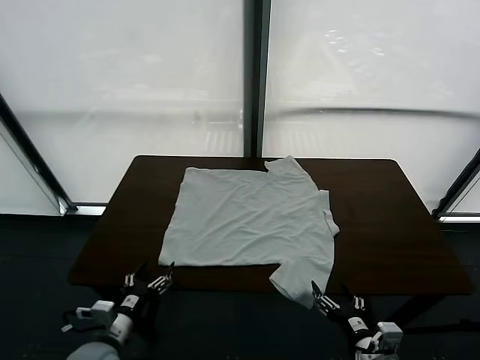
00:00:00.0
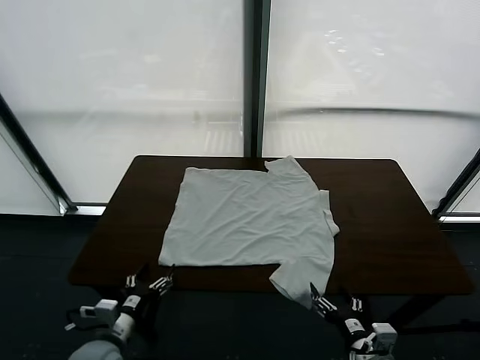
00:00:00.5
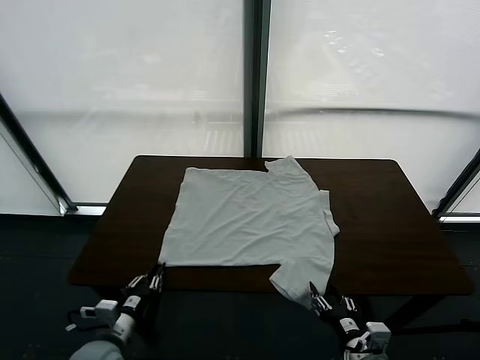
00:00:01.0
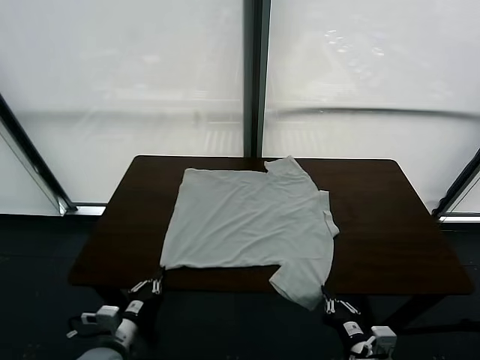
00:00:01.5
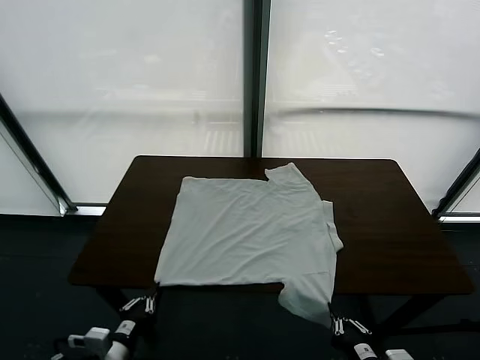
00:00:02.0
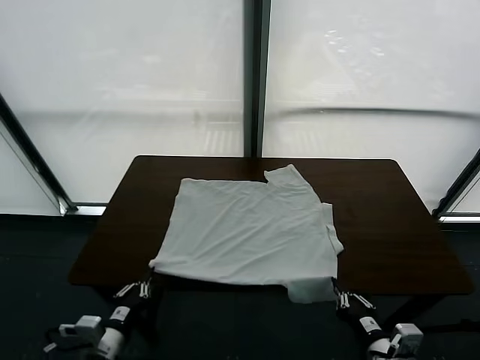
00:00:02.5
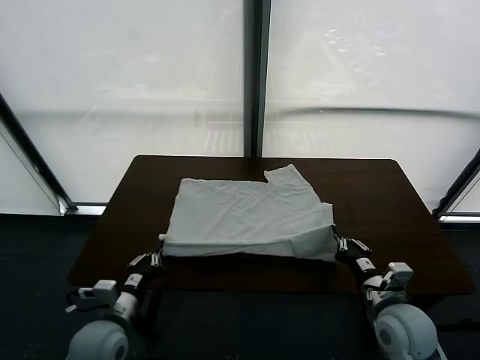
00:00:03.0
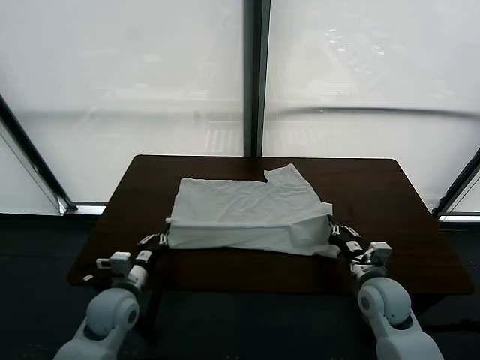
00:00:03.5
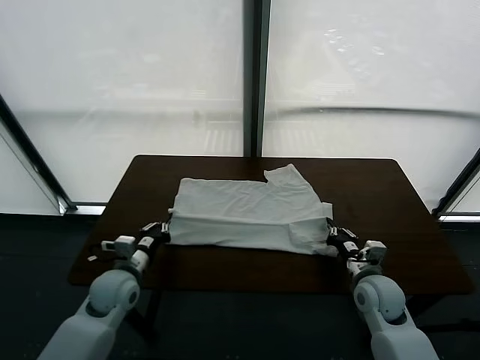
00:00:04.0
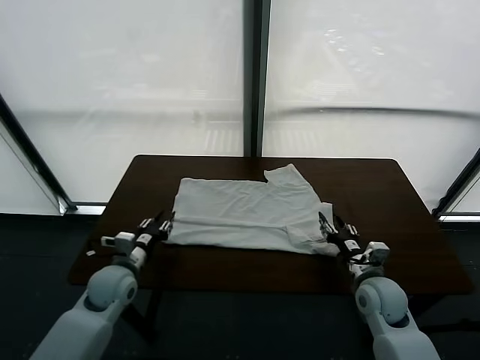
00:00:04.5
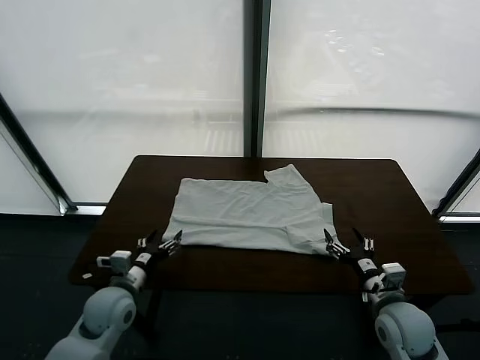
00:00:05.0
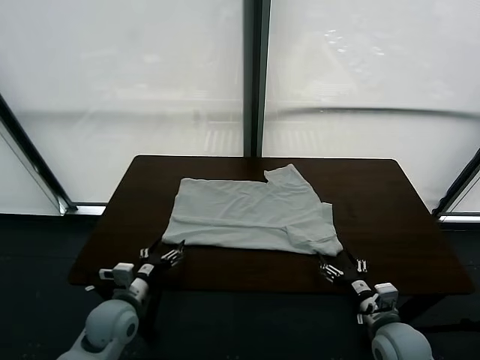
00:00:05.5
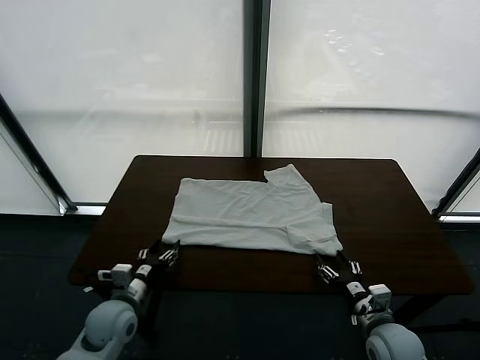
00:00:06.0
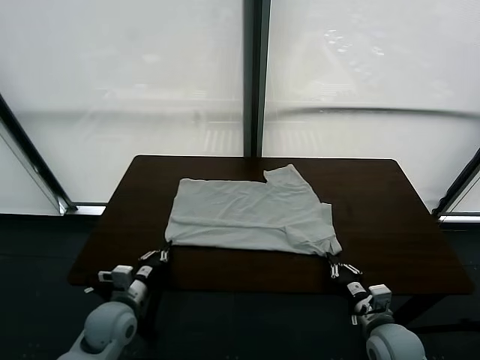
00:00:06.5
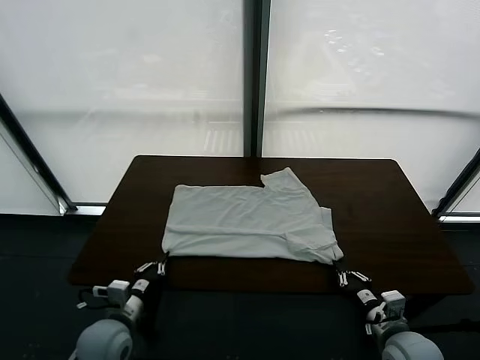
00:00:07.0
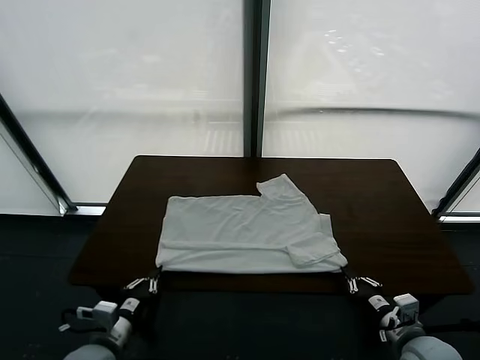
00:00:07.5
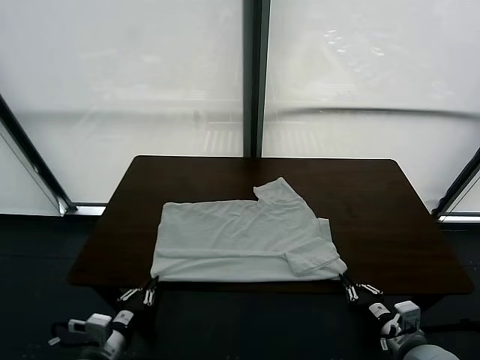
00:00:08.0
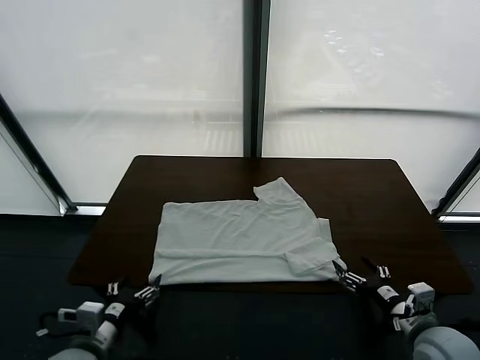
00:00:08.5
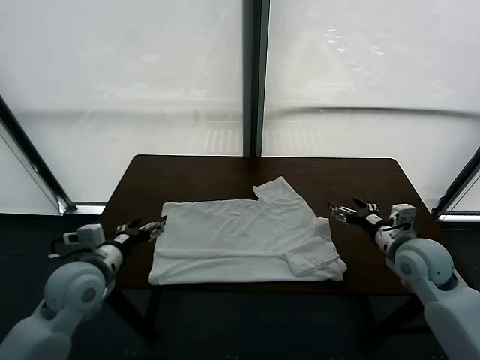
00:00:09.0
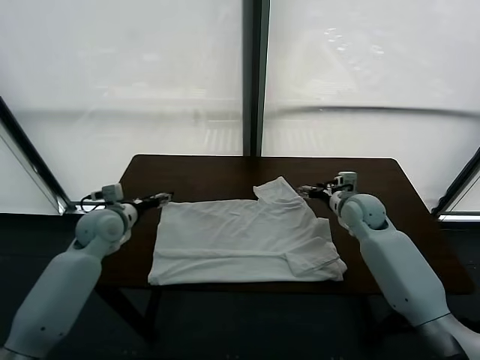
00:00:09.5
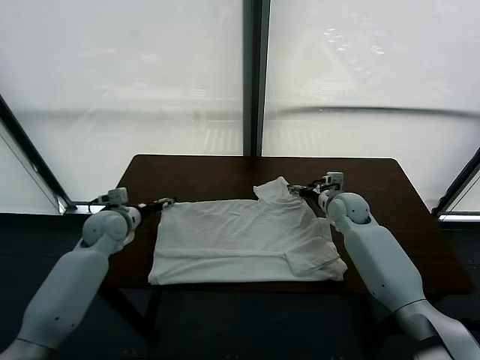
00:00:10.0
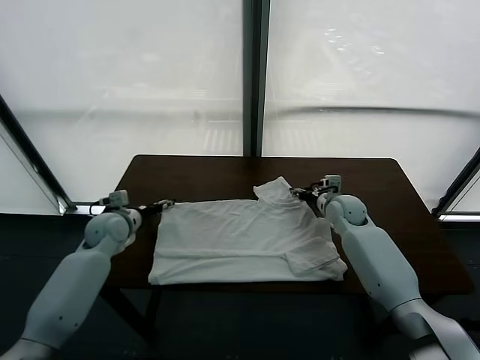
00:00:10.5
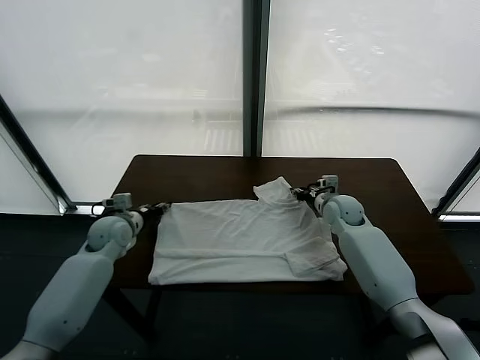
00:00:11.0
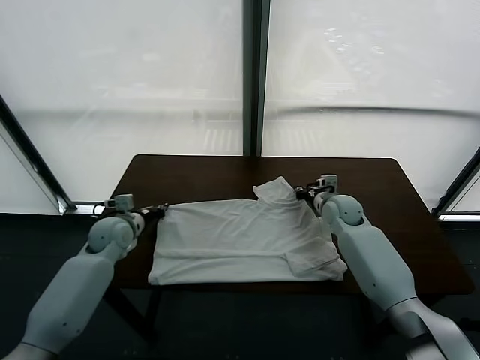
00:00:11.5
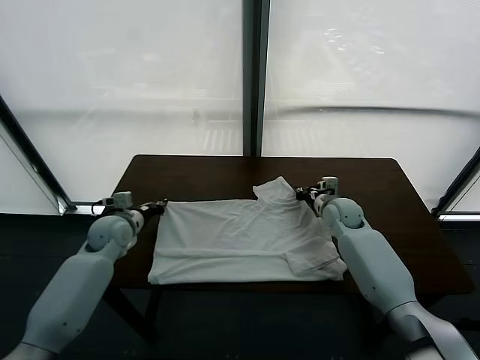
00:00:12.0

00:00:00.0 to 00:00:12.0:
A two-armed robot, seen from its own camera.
Task of the whole recording: fold and organize the clothes.
Step, 00:00:00.0 to 00:00:02.0: use both grippers simultaneously to clamp the lower edge of the clothing fabric.
Step, 00:00:02.5 to 00:00:04.5: use both grippers to drag the lower edge of the fabric forward and fold it over the upper edge.
Step, 00:00:05.0 to 00:00:08.0: Drag the clothes downward with both gripper.
00:00:02.0 to 00:00:04.0: The two grippers go some 20 cm forward.
00:00:04.0 to 00:00:06.0: The left gripper goes some 5 cm backward, and opens. The right gripper shifts some 10 cm backward, and opens its fingers.
00:00:06.0 to 00:00:08.0: The left gripper travels backward by some 10 cm, and closes up, while the right gripper travels backward by some 5 cm, and closes, then opens again.
00:00:08.0 to 00:00:10.0: Both grippers move forward, about 35 cm. The left gripper opens; the right gripper opens up.
00:00:10.0 to 00:00:12.0: The right gripper closes; the left gripper closes its fingers.

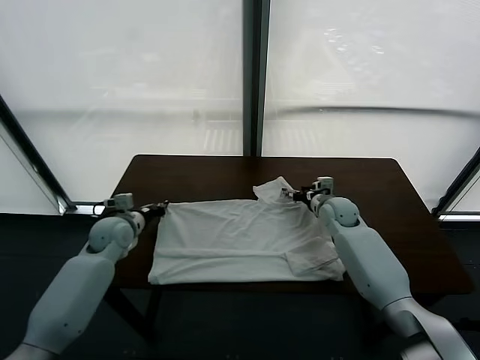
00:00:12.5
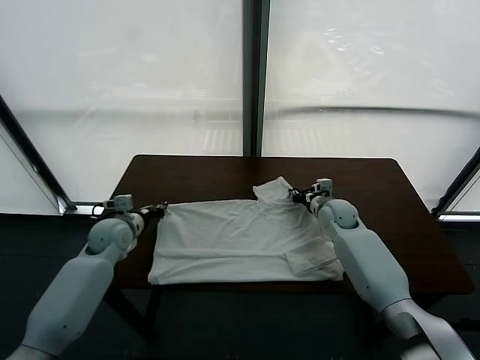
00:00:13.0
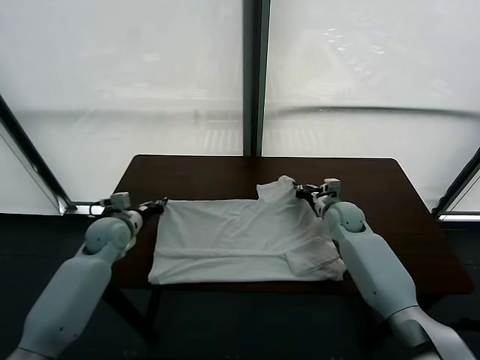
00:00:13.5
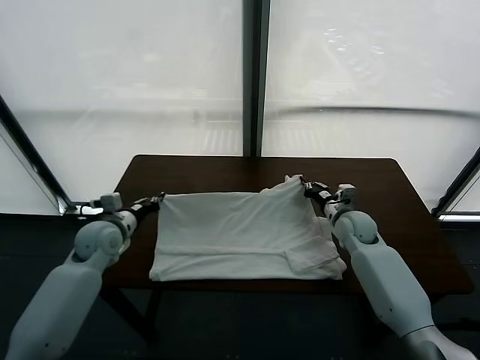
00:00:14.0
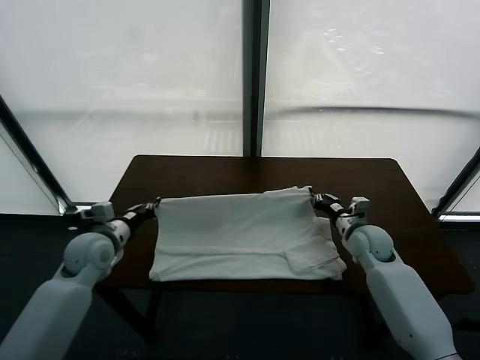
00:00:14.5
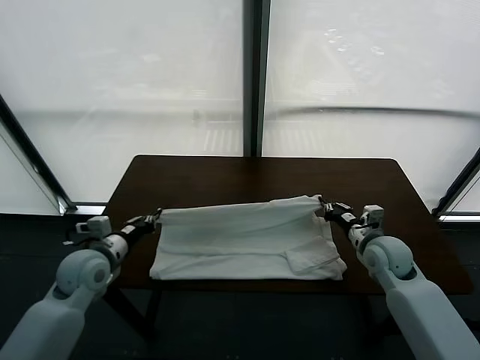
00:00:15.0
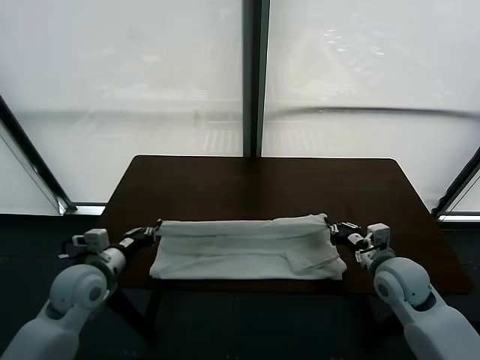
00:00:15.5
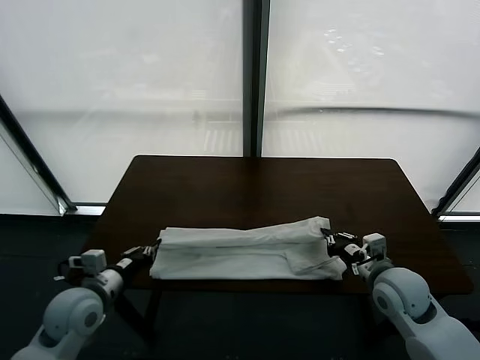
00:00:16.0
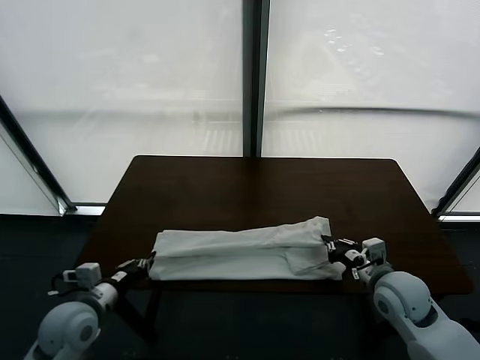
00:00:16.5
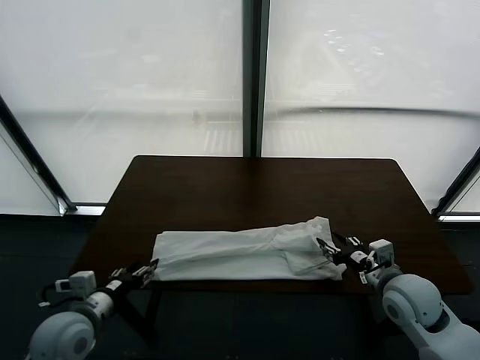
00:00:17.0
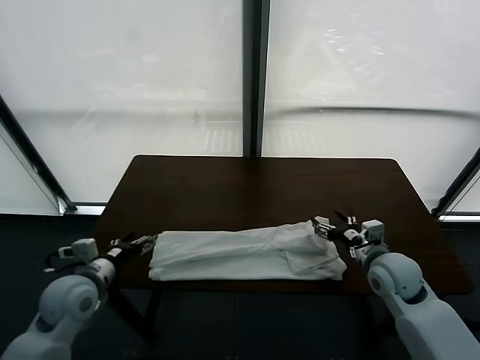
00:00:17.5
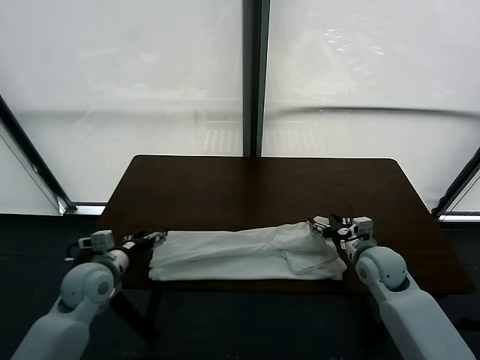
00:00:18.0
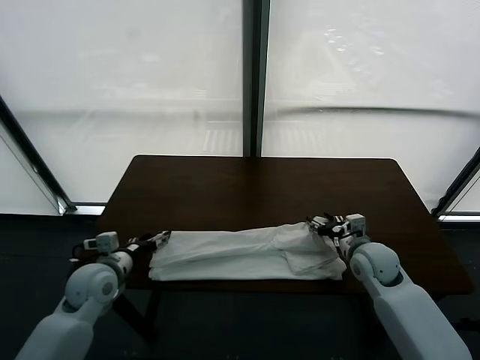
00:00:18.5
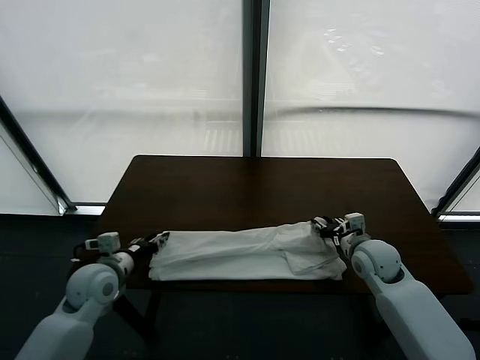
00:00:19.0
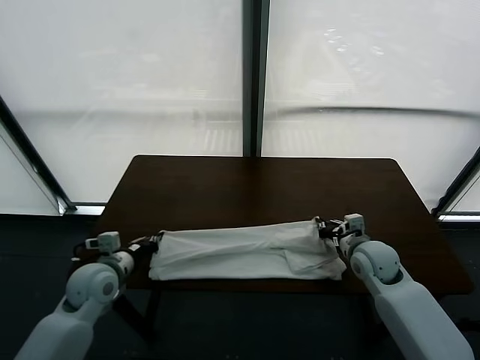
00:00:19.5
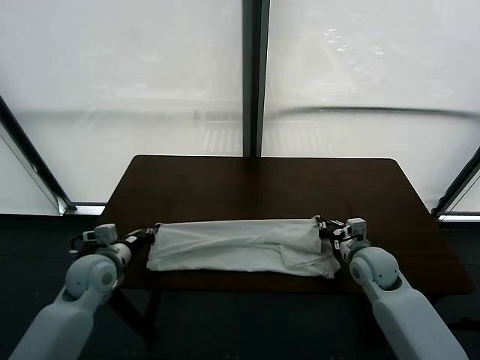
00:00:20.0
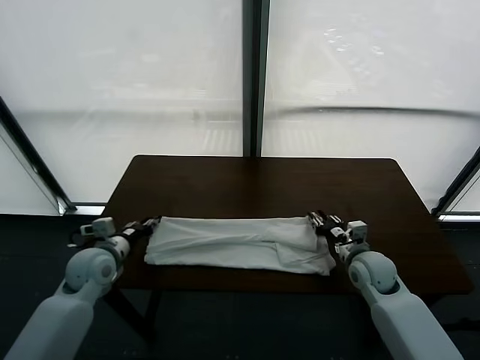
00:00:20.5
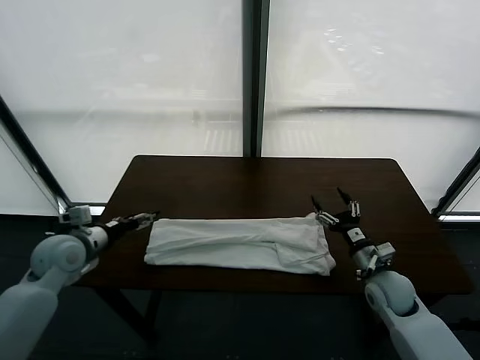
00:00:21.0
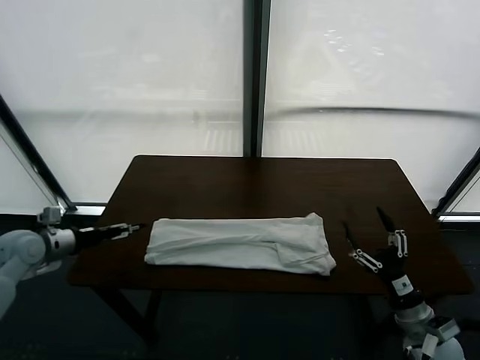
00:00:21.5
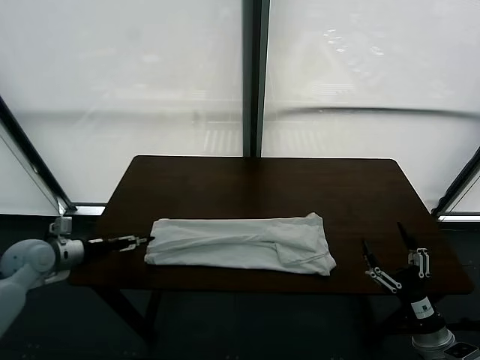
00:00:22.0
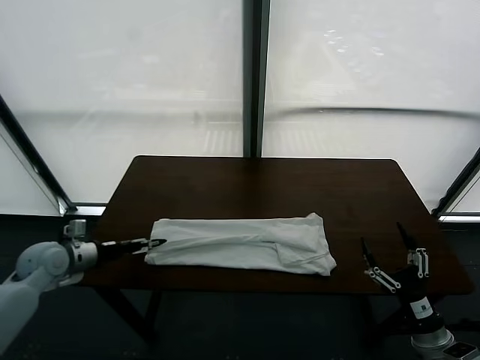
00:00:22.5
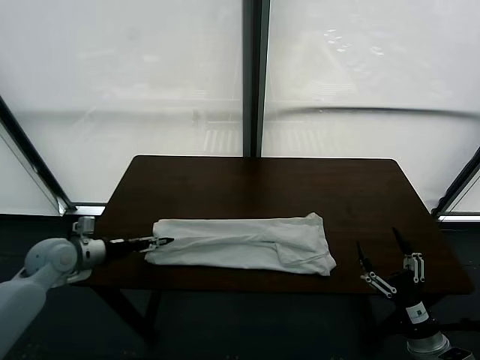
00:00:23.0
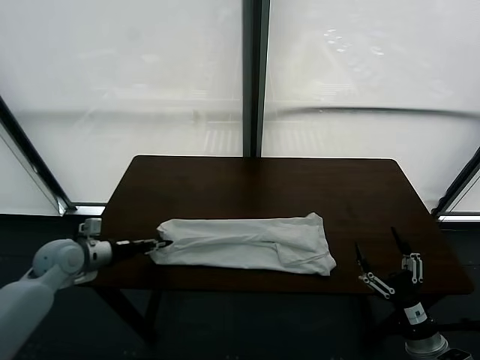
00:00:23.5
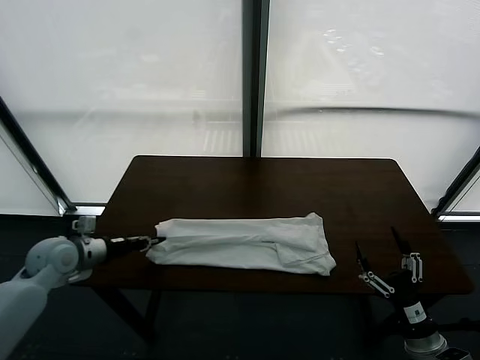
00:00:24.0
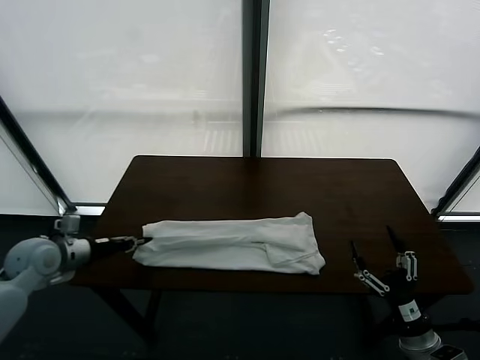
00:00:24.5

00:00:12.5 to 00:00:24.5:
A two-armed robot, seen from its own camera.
Task of the whole recording: fold and organize the clothes.
Step, 00:00:13.5 to 00:00:17.0: use both grippers to drag the upper edge of the fabric backward and fold it over the lower edge.
Step, 00:00:17.5 to 00:00:23.0: use the left gripper to clamp the left edge of the fabric.
00:00:12.5 to 00:00:14.5: The right gripper travels backward and to the right by some 10 cm, and closes; the left gripper moves backward, about 5 cm.
00:00:14.5 to 00:00:16.5: The grippers both shift backward by approximately 15 cm.
00:00:16.5 to 00:00:18.5: The two grippers go some 10 cm forward. The right gripper opens up. Meanwhile the left gripper opens its fingers.
00:00:18.5 to 00:00:20.5: The left gripper closes its fingers. Meanwhile the right gripper closes, then opens again.
00:00:20.5 to 00:00:22.5: The right gripper heads backward, covering about 20 cm, and opens up. The left gripper heads to the left, covering approximately 10 cm, and opens its fingers.
00:00:22.5 to 00:00:24.5: The left gripper closes its fingers.

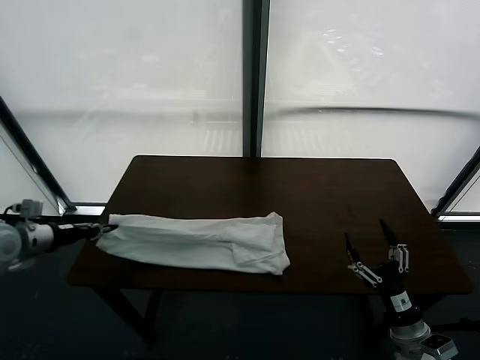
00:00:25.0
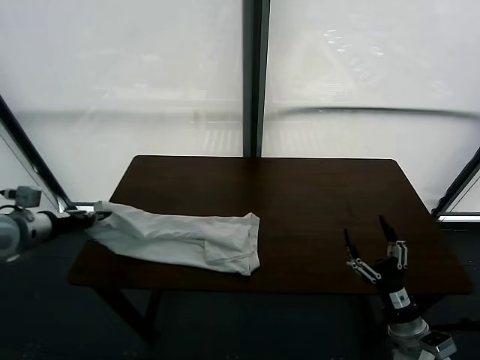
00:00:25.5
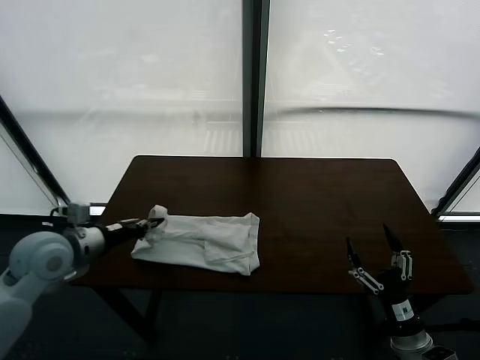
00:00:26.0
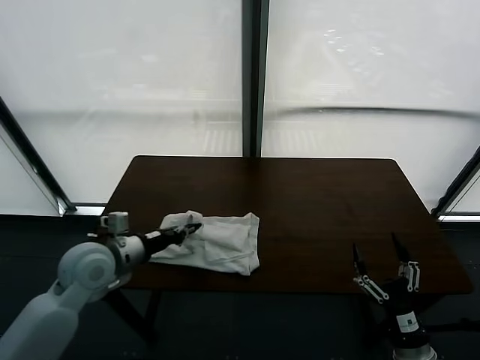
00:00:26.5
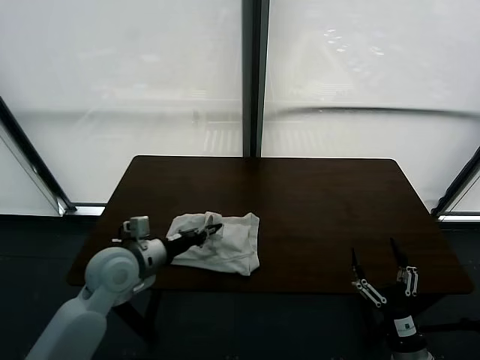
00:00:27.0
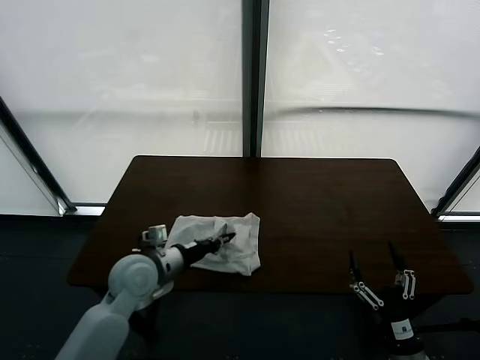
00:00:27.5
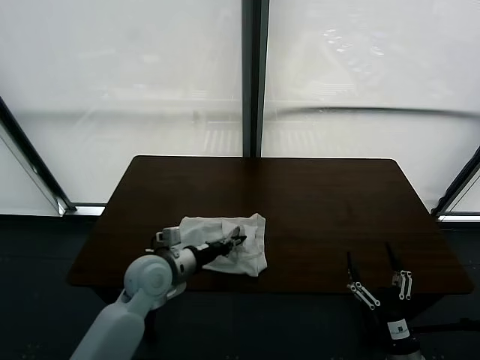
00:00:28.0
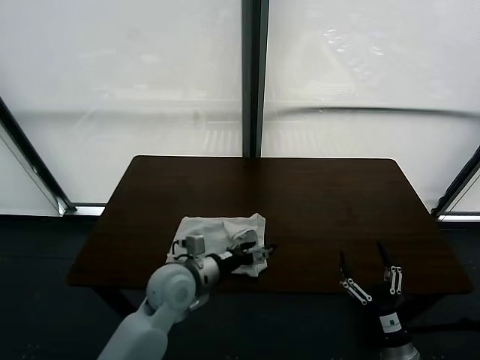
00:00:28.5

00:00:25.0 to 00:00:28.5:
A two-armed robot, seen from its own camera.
Task of the whole recording: fold and organize the clothes.
Step, 00:00:25.0 to 00:00:28.5: use the left gripper to drag the left edge of the fabric to the left and folds it over the right edge.
00:00:25.0 to 00:00:27.0: The left gripper travels to the right by about 25 cm. The right gripper shifts some 5 cm backward.
00:00:27.0 to 00:00:28.5: The left gripper goes roughly 10 cm to the right, and opens.
